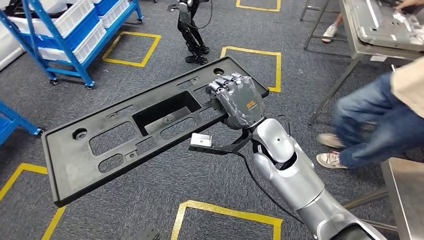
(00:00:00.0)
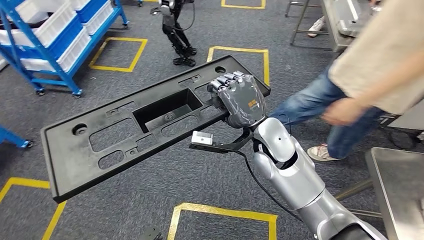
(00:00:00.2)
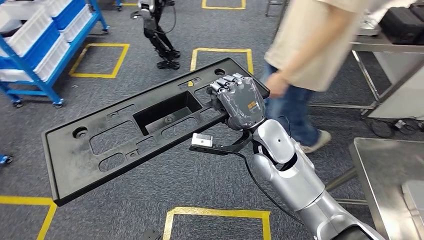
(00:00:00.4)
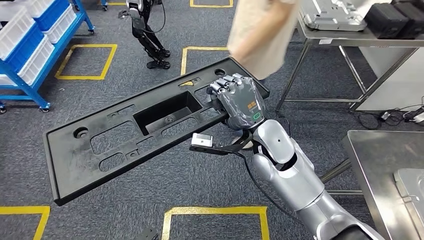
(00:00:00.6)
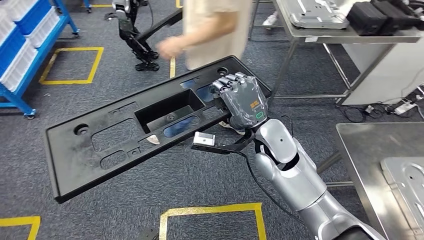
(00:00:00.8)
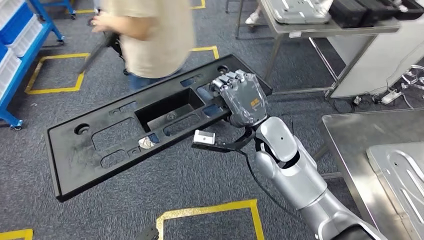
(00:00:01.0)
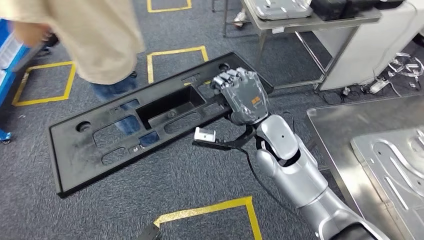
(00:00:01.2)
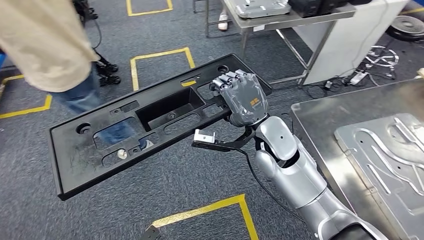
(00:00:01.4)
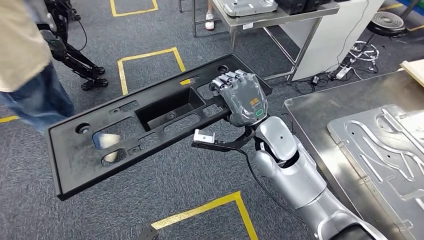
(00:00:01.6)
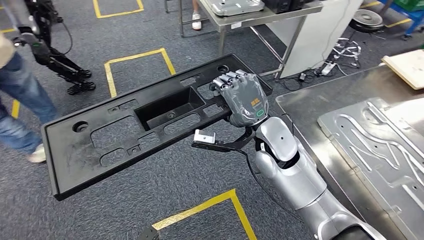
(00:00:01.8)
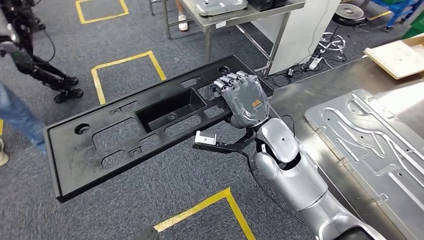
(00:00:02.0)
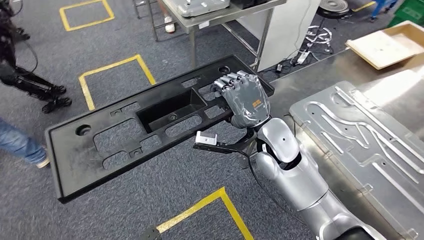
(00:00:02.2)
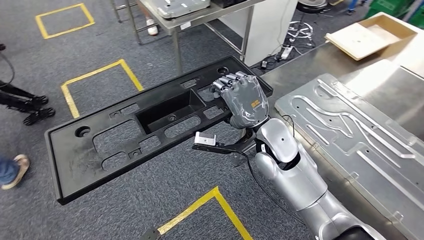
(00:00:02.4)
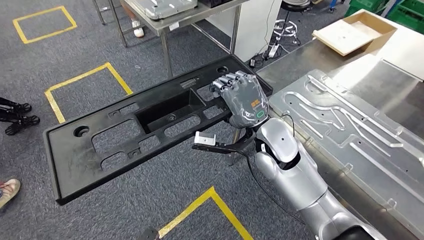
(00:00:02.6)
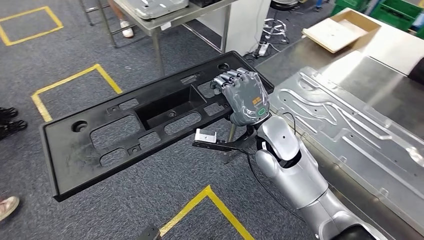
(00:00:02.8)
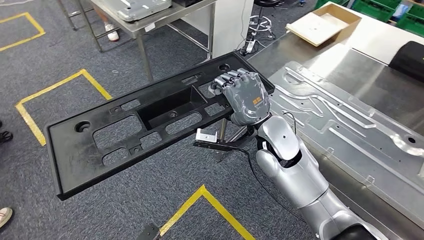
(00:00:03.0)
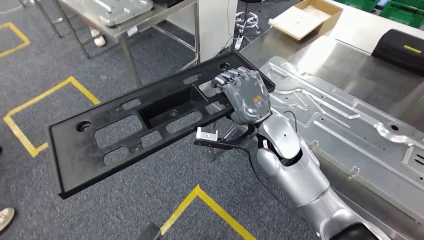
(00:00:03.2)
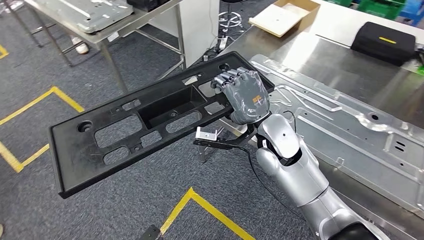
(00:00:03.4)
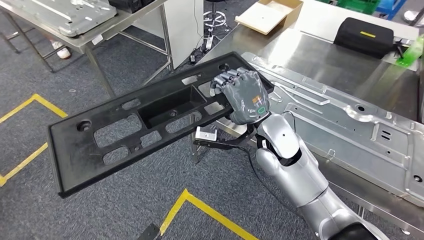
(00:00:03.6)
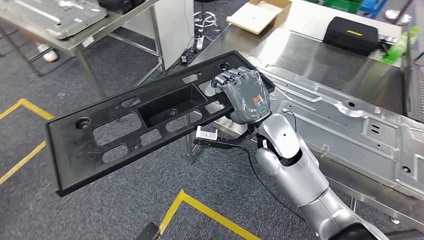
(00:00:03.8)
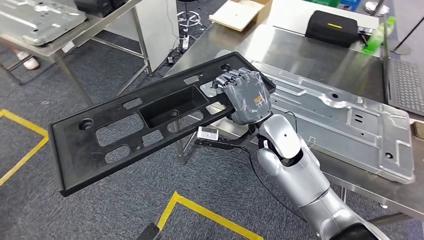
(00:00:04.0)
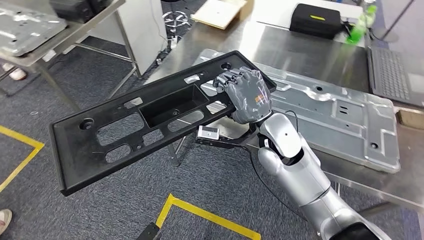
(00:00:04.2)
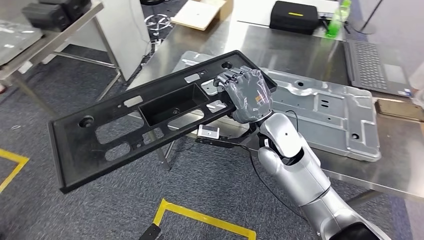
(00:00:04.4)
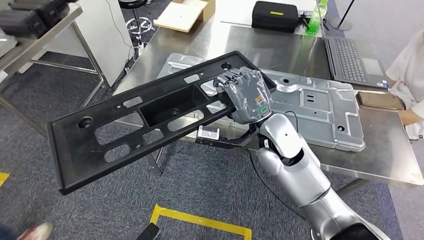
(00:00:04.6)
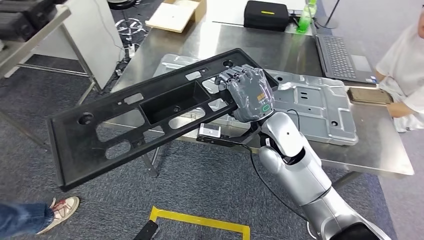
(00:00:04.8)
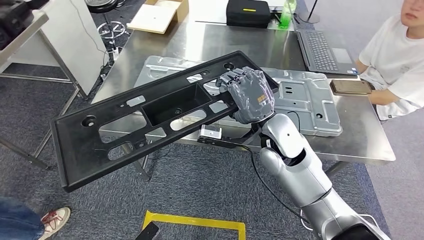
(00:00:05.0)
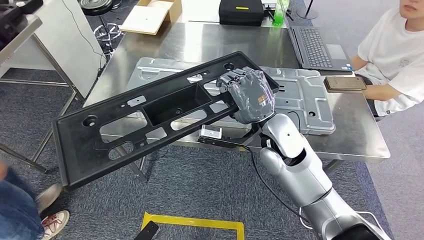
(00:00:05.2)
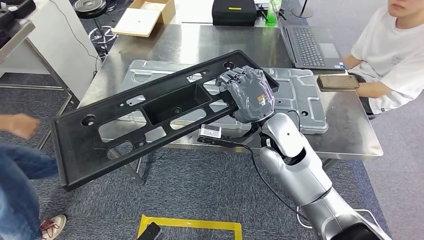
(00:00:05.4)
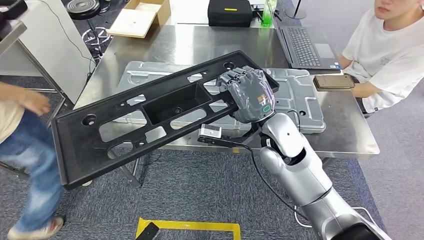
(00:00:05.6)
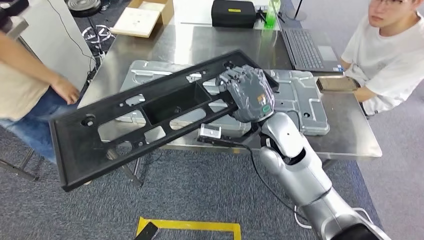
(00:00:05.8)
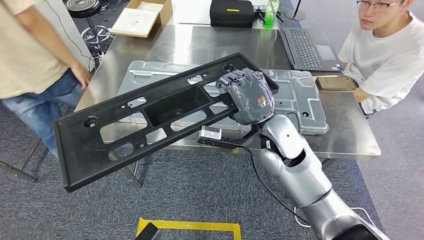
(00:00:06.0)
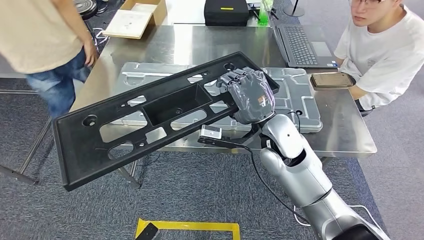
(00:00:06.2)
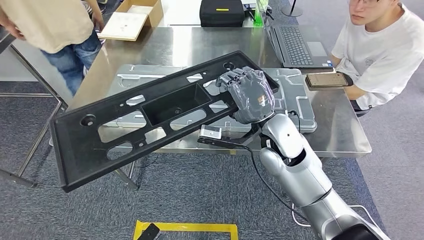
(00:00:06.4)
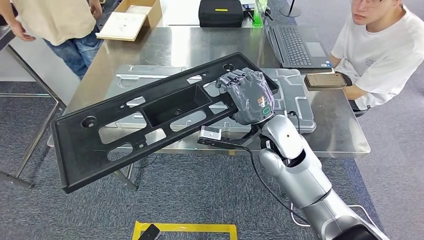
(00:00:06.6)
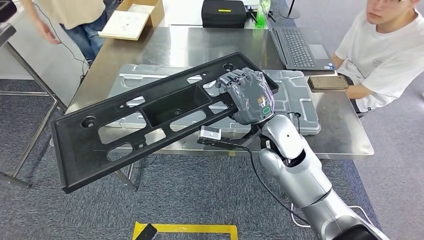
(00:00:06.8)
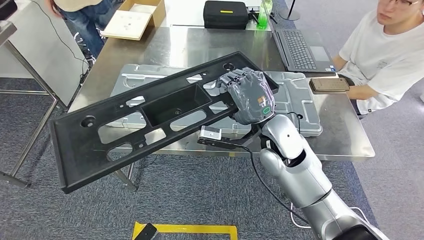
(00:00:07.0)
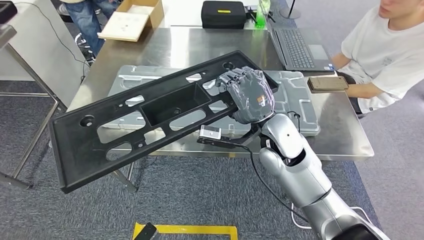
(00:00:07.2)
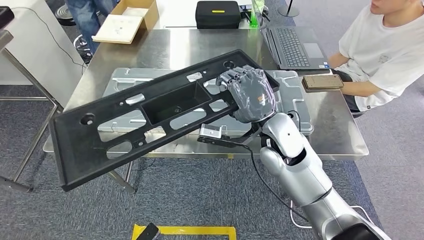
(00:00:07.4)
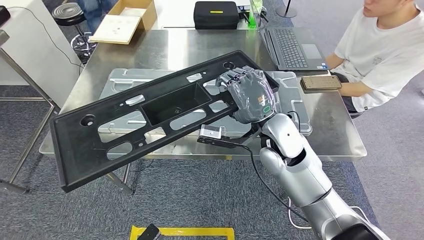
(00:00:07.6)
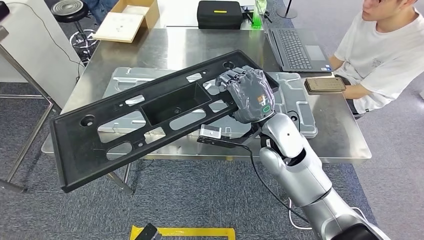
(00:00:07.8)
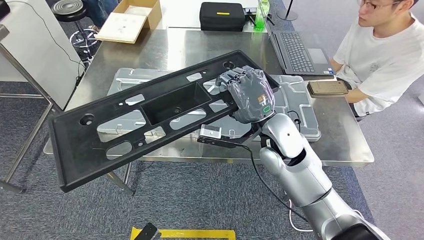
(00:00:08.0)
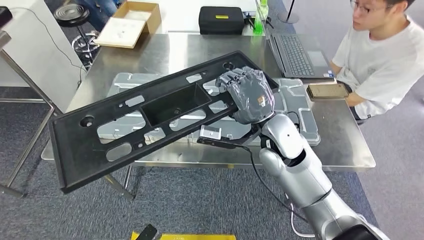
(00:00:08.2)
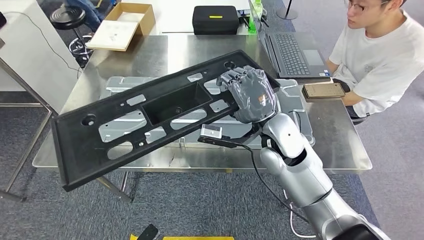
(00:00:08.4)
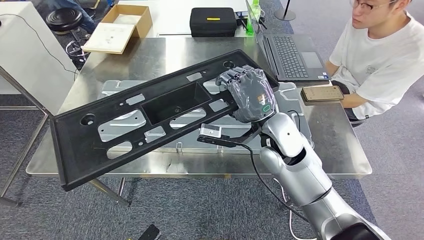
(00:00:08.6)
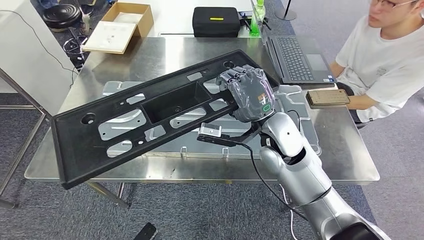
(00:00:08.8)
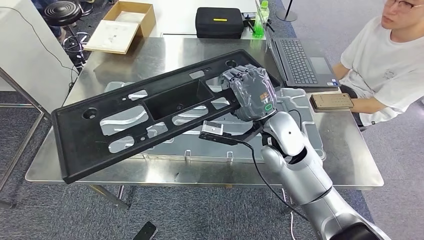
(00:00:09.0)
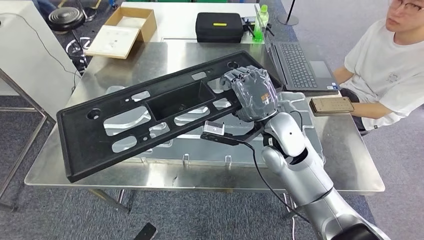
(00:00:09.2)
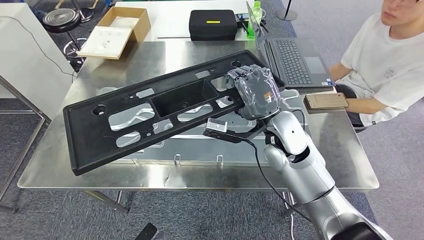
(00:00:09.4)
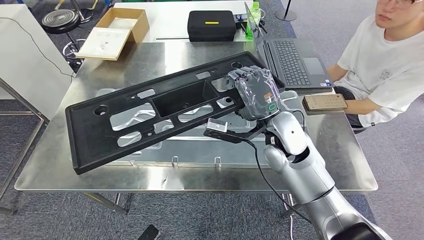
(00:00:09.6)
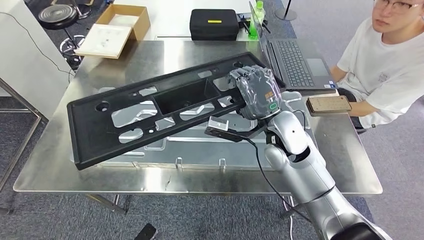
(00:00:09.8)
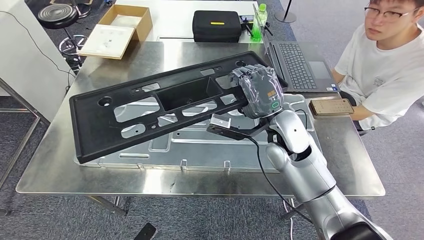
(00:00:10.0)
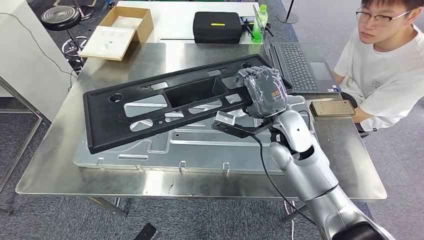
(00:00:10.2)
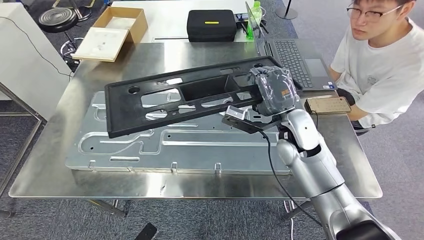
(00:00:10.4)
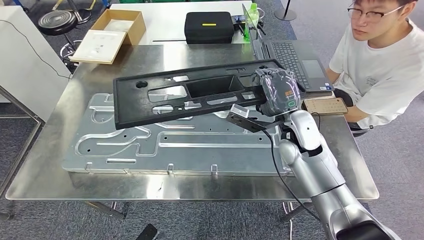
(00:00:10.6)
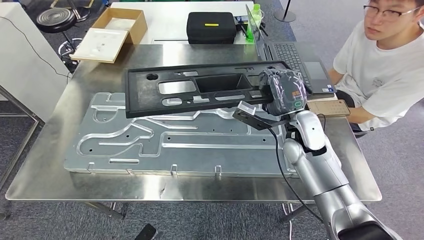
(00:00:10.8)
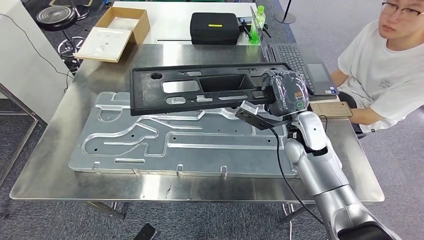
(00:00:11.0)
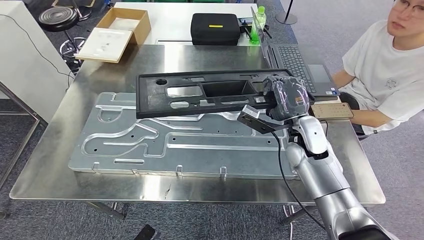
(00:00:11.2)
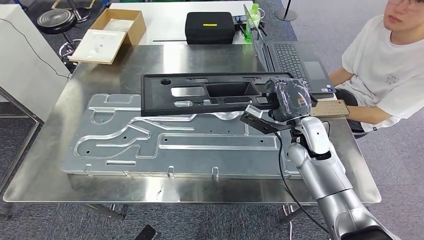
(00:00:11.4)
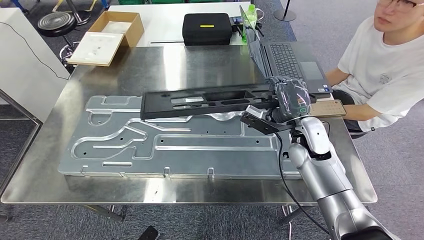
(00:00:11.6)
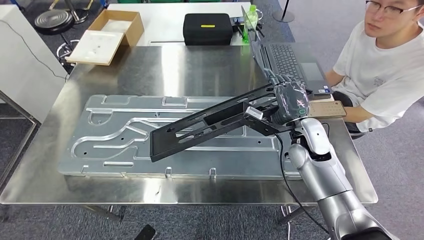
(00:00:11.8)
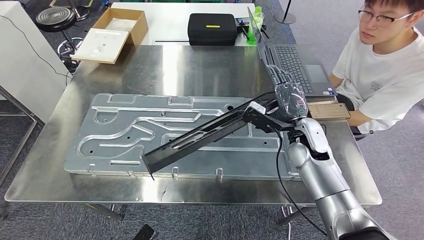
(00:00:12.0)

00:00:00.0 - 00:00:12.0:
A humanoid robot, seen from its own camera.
Step, 00:00:00.0 - 00:00:02.2: Move the large material to the workbench.
Step, 00:00:04.2 - 00:00:10.0: Insert the large material into the corresponding slot on the workbench.

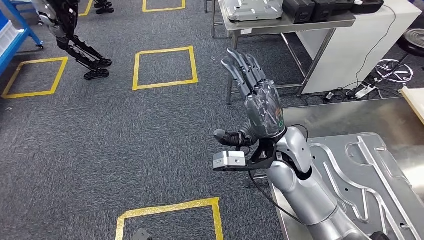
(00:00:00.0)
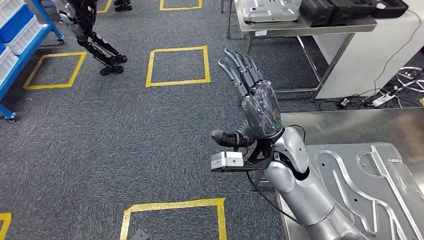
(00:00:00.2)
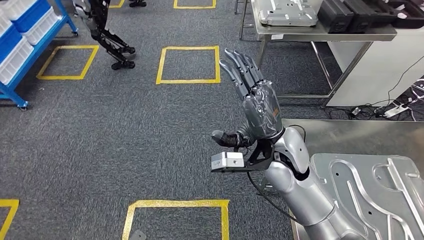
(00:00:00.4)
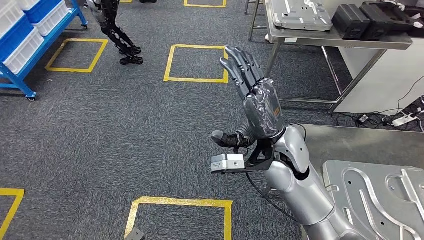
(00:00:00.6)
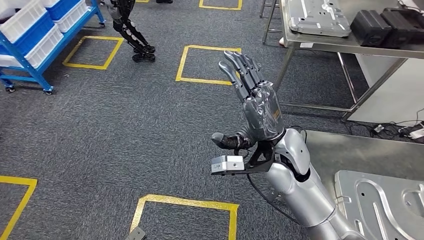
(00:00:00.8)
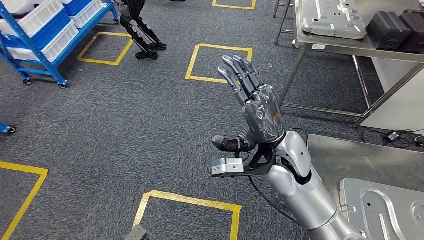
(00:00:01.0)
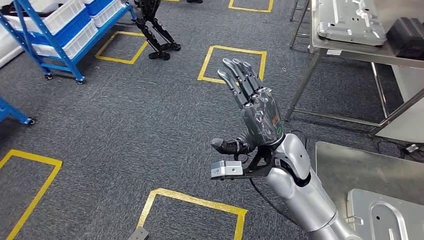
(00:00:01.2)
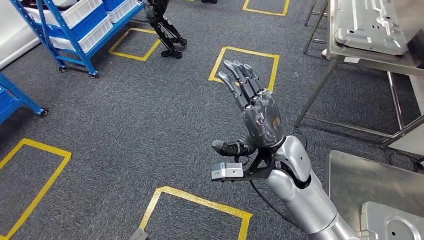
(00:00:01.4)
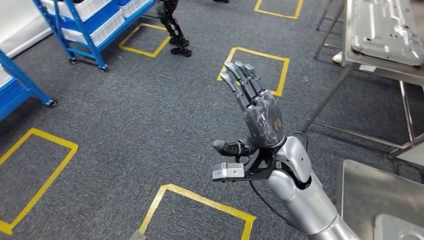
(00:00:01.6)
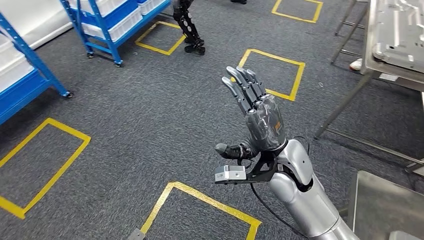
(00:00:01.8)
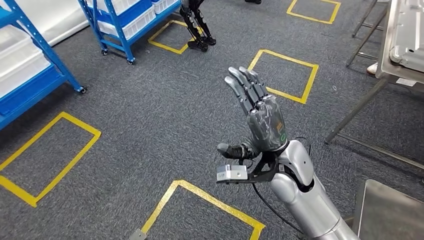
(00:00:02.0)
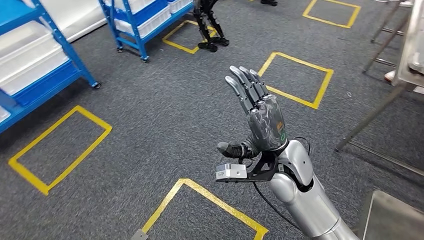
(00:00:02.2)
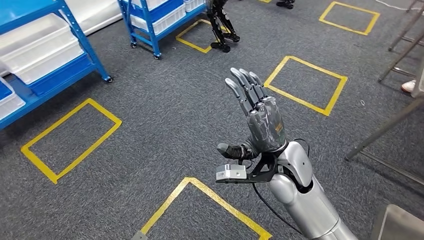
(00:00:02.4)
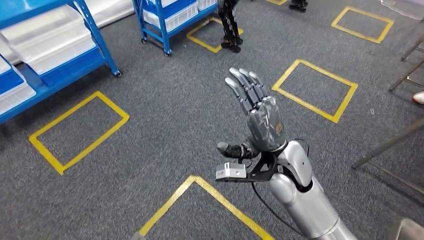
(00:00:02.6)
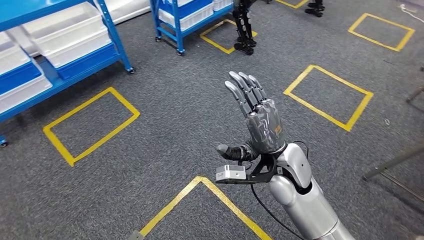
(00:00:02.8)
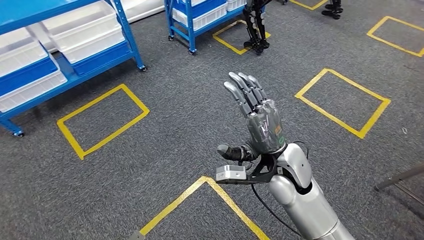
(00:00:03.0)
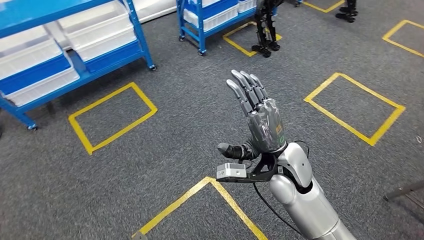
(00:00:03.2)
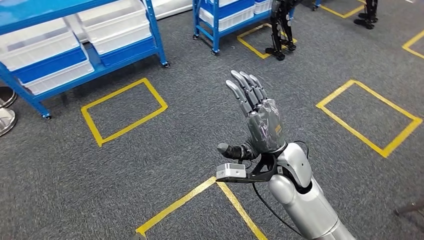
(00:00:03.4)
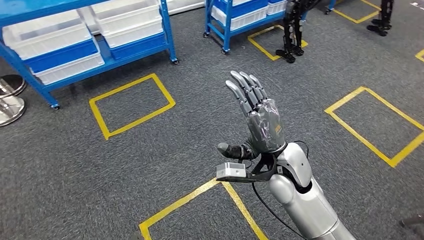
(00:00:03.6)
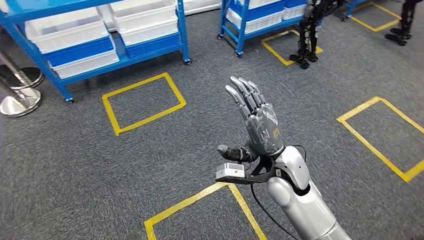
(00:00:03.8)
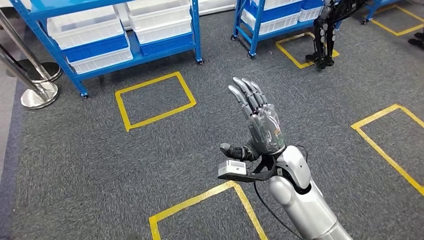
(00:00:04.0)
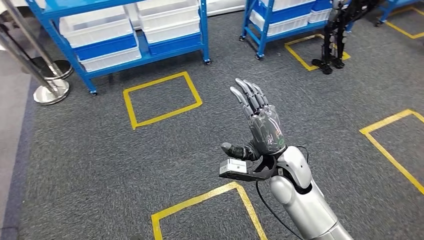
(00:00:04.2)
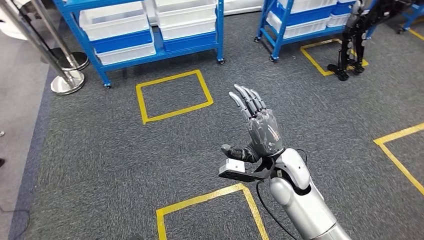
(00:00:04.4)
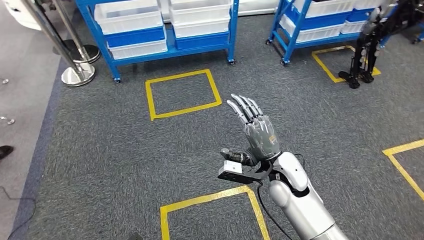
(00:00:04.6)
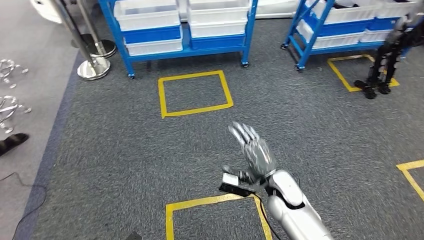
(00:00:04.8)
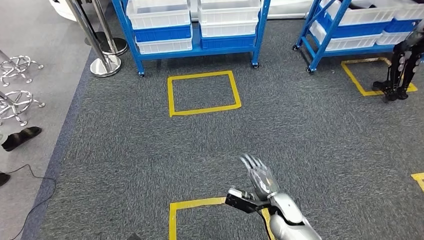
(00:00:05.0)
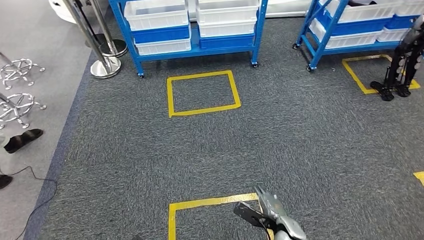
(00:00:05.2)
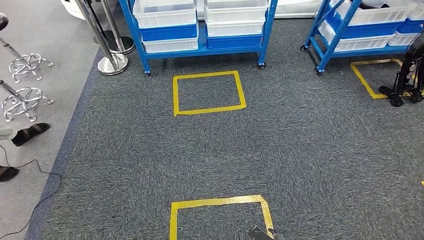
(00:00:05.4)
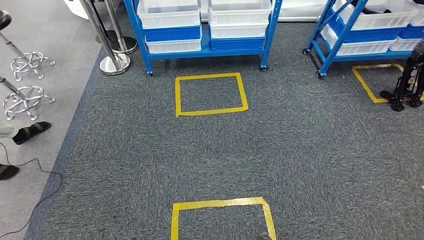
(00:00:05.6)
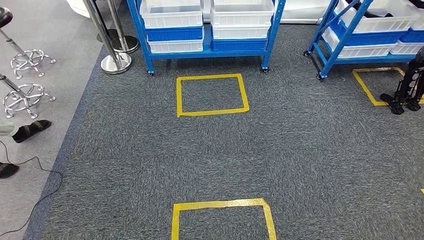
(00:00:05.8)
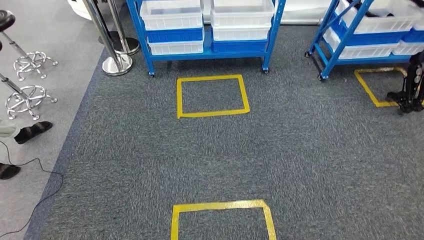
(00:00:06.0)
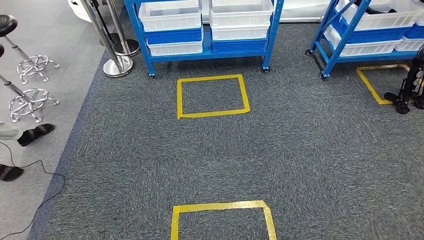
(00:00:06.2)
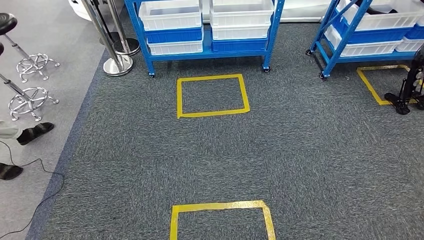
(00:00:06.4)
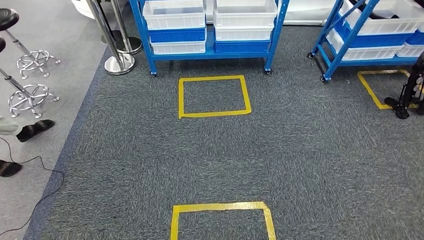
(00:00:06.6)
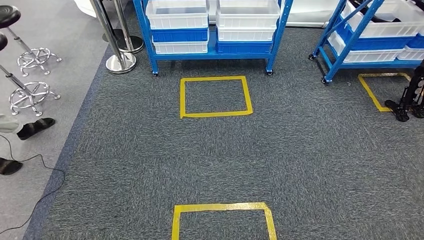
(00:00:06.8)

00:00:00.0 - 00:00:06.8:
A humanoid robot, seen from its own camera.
Step, 00:00:01.4 - 00:00:06.8: Move to the initial position of the shelf.
